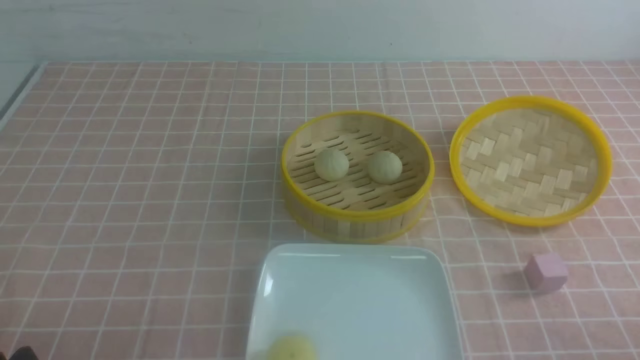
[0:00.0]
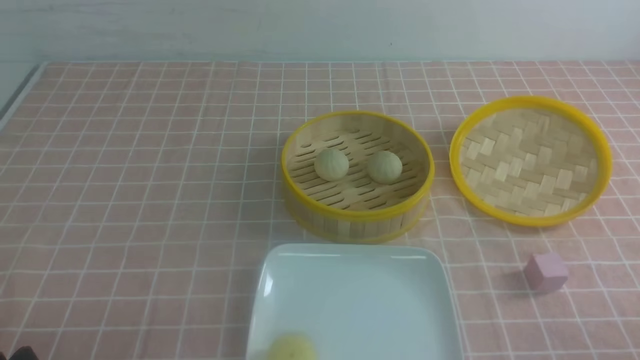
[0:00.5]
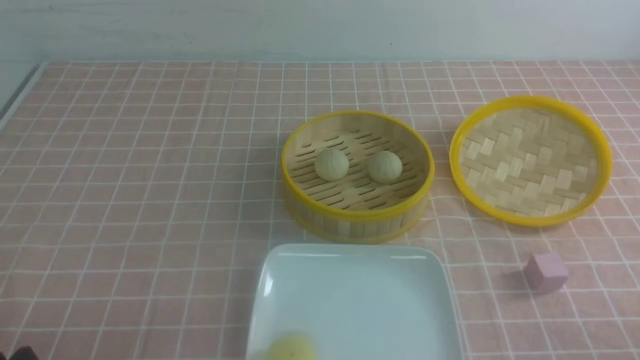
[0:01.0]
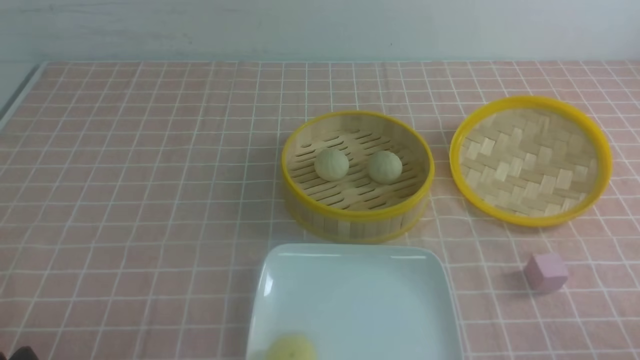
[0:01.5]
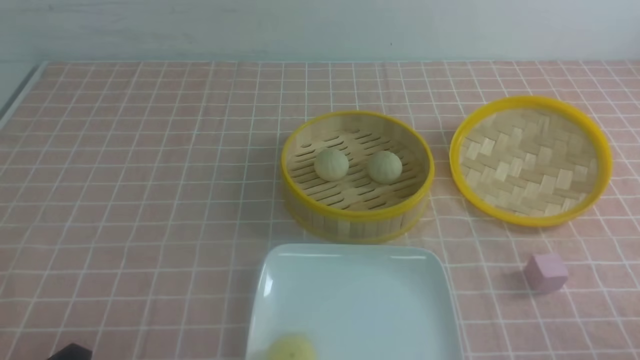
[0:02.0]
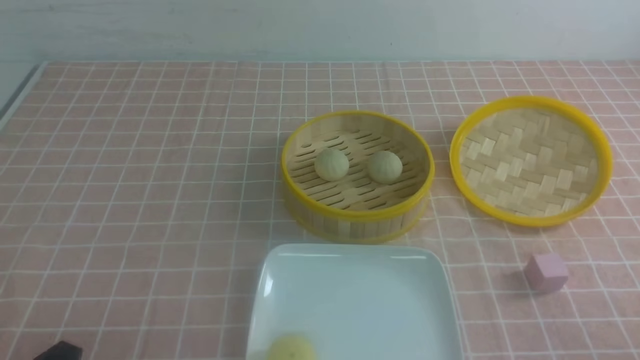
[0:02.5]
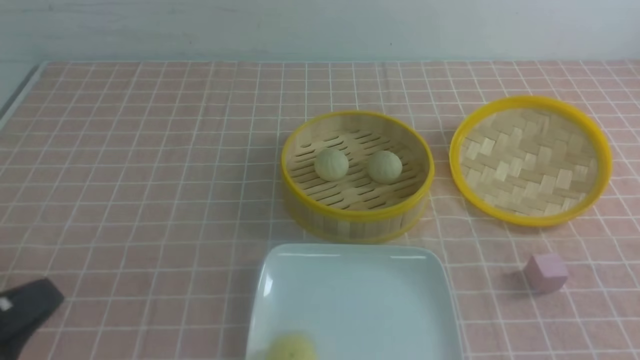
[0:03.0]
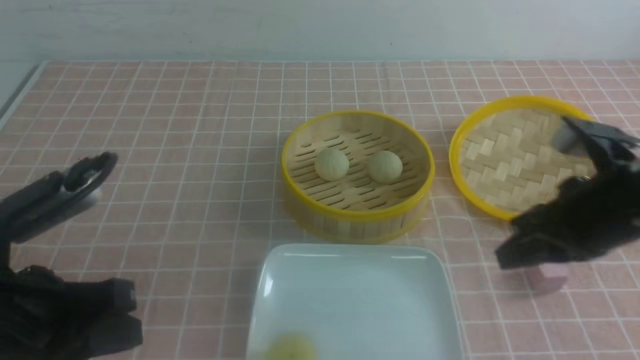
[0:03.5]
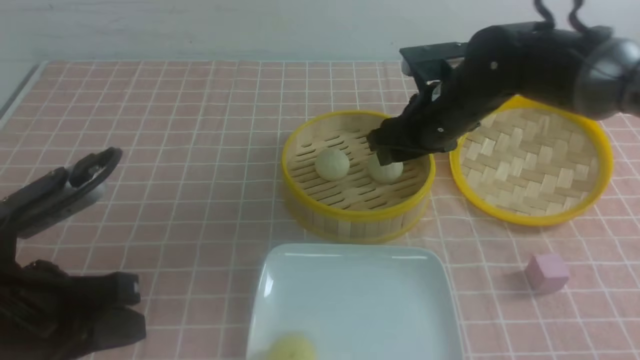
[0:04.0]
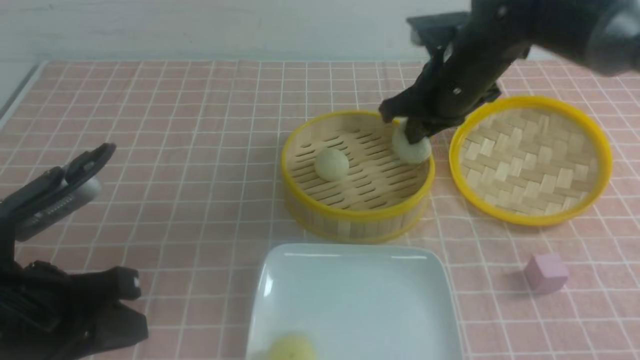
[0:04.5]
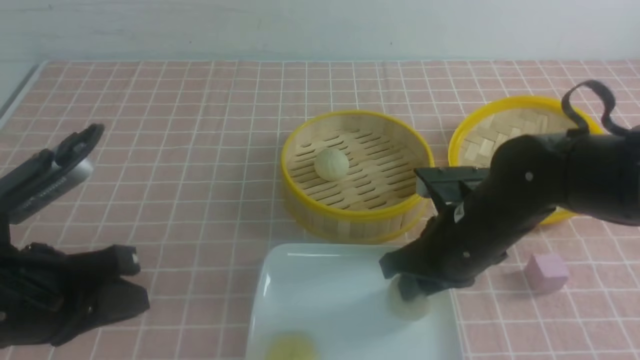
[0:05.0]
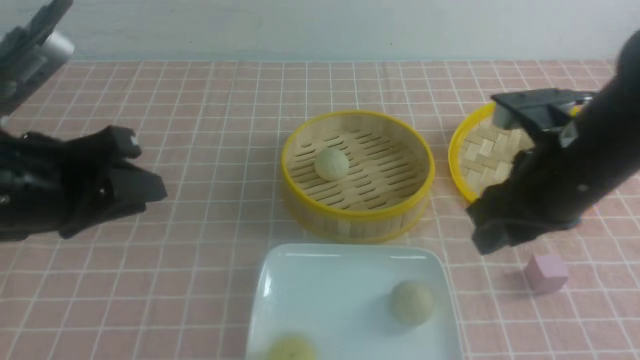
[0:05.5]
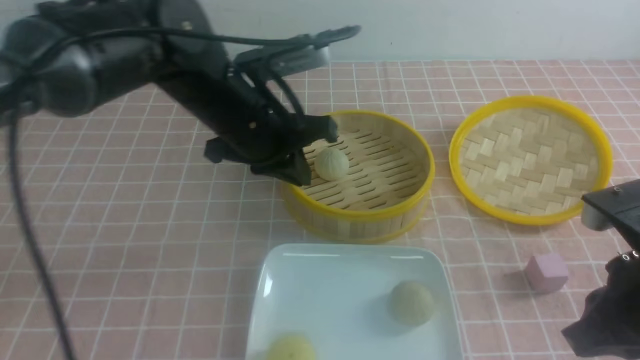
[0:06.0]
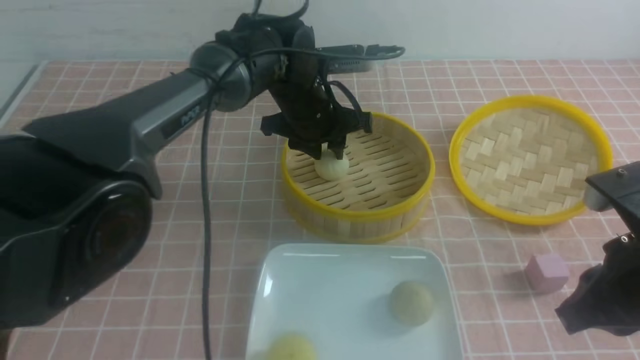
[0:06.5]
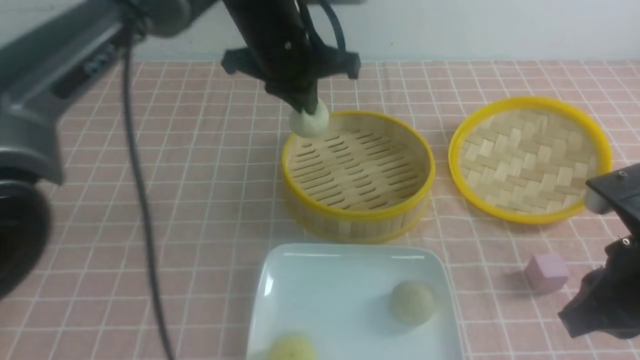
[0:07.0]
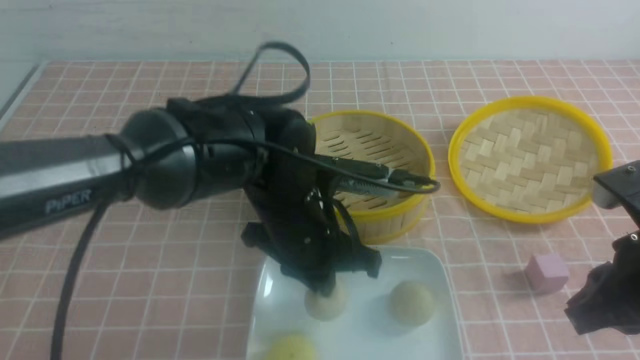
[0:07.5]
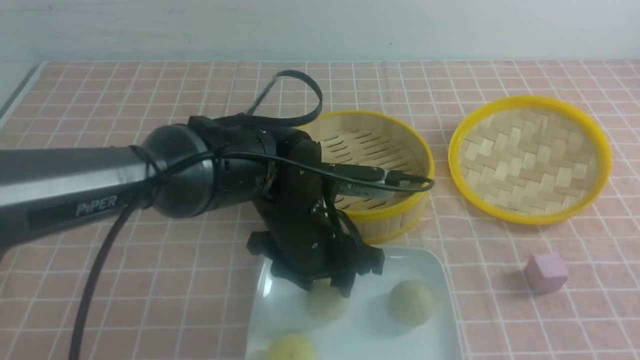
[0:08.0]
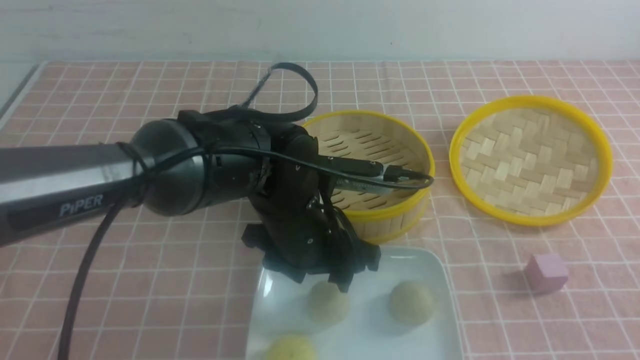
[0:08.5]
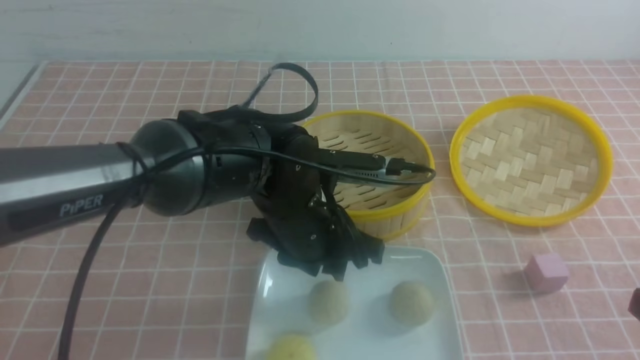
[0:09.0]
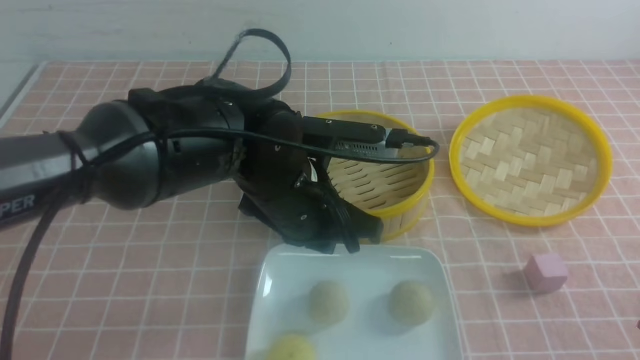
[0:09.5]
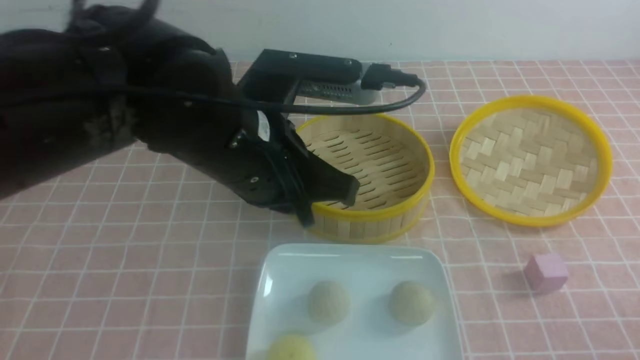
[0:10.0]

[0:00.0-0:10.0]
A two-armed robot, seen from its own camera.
Step, 0:00.0 to 0:04.0: use the right arm to grab the steamed stuffed bun that is closest to it.
Step, 0:04.5 to 0:05.0: use the right arm to put the steamed stuffed bun into the plate.
Step, 0:05.5 to 0:06.5: use the left arm to grab the steamed stuffed bun that is closest to it.
Step, 0:07.0 to 0:08.0: use the left arm to put the steamed stuffed bun into the plate.
0:02.0 to 0:04.0: The right gripper is displaced forward and to the left by roughly 40 cm, and closes, then reopens, while the left gripper goes roughly 15 cm forward and upward, and closes its fingers.
0:04.0 to 0:06.0: The left gripper moves forward and to the right, about 25 cm, while the right gripper is displaced backward and to the right by roughly 25 cm, and closes.
0:06.0 to 0:08.0: The right gripper moves backward, roughly 10 cm; the left gripper goes roughly 15 cm downward, backward and to the right, and opens.
0:08.0 to 0:10.0: The right gripper shifts roughly 10 cm downward; the left gripper shifts roughly 15 cm upward, and closes.

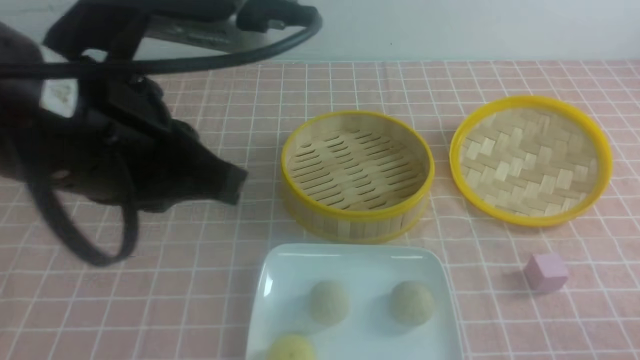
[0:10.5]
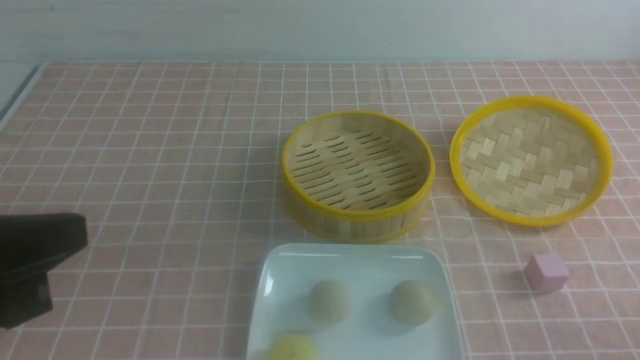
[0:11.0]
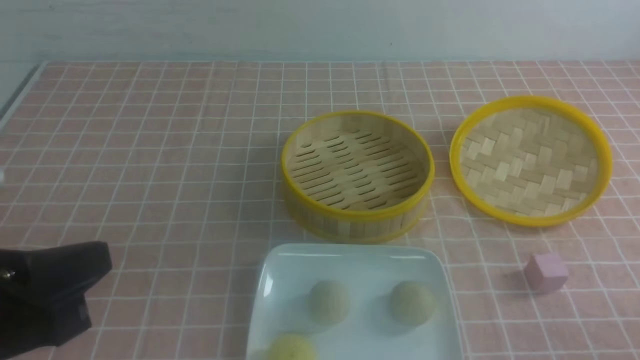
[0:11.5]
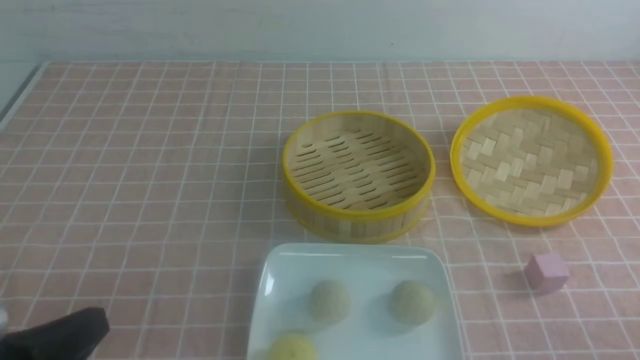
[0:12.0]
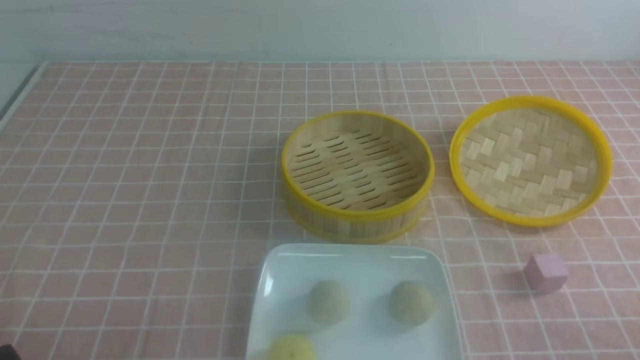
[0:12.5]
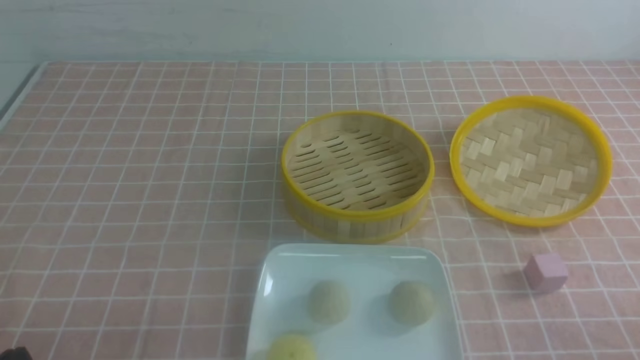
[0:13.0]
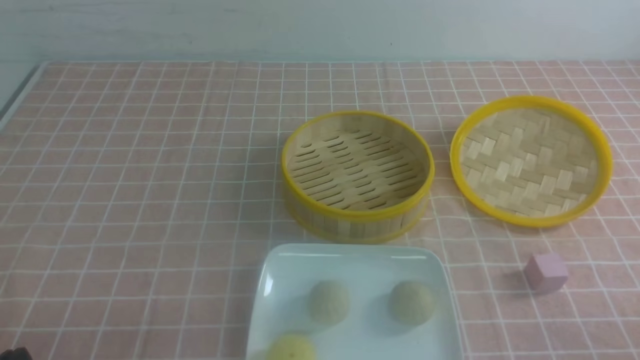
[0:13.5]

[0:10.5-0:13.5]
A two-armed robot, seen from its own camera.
0:10.5 to 0:12.0: The left gripper travels downward, to the left and backward by roughly 20 cm.
0:12.0 to 0:13.5: The left gripper is displaced downward by roughly 5 cm.

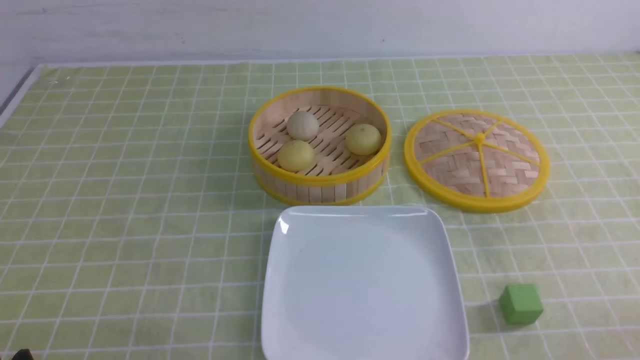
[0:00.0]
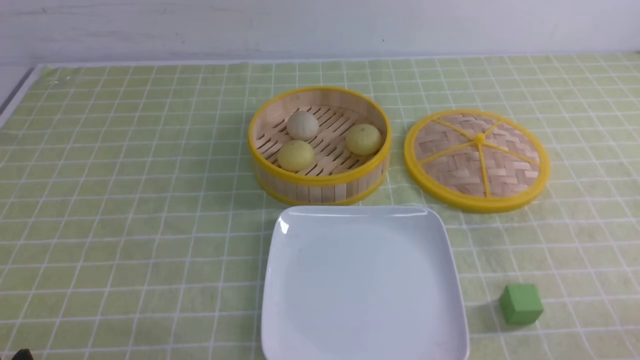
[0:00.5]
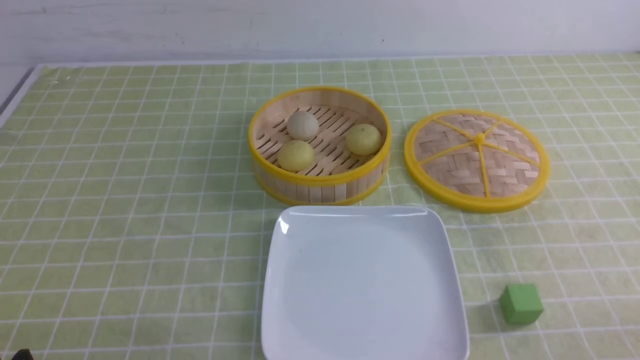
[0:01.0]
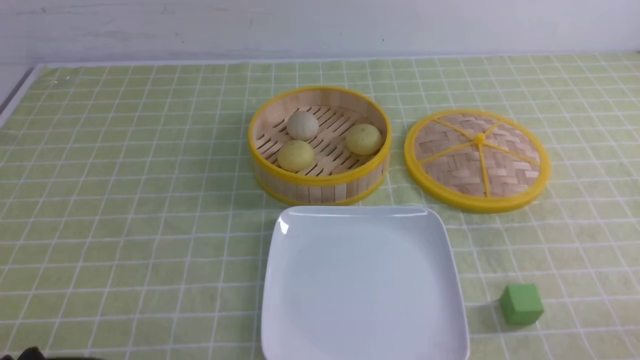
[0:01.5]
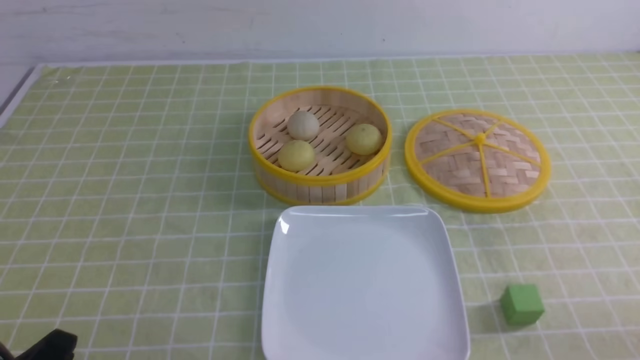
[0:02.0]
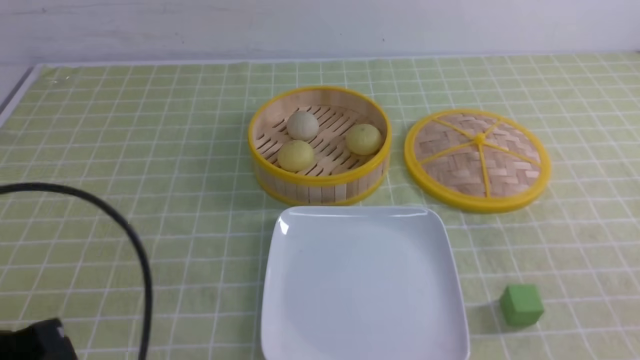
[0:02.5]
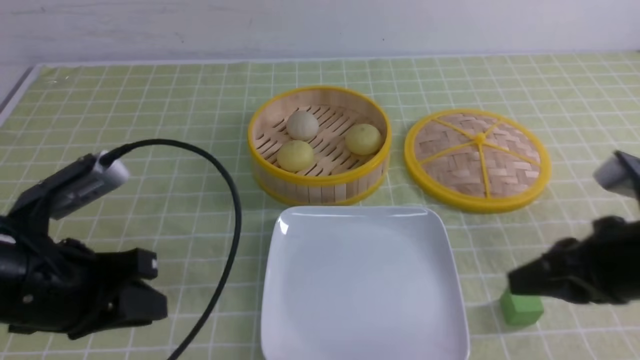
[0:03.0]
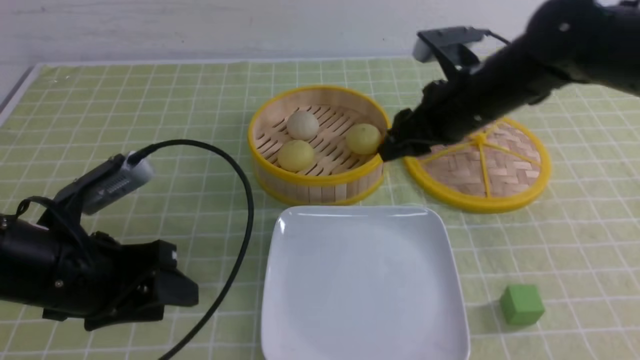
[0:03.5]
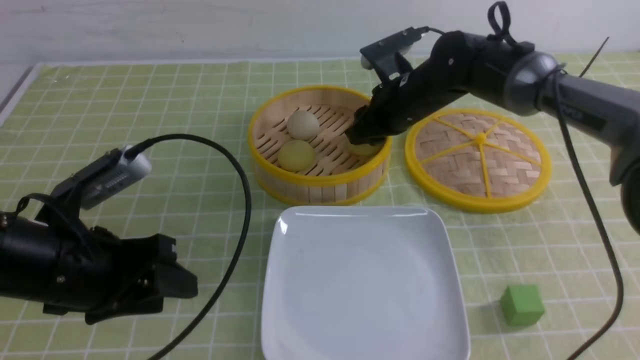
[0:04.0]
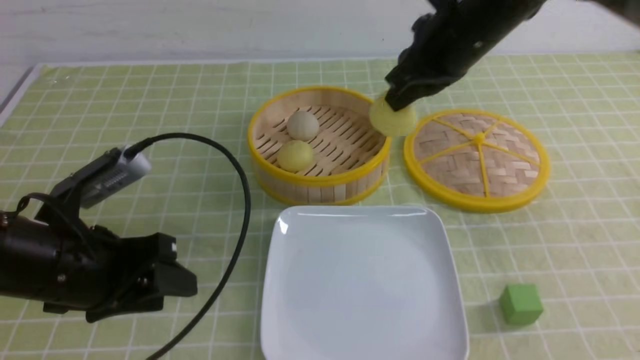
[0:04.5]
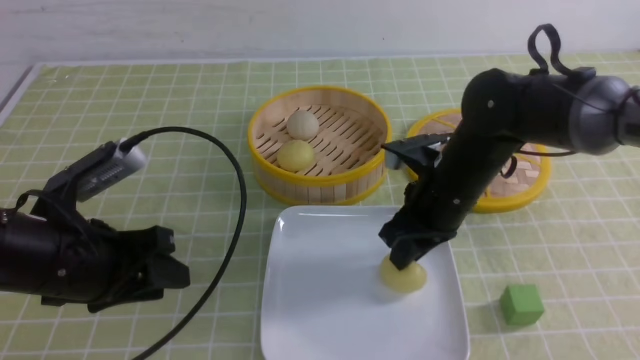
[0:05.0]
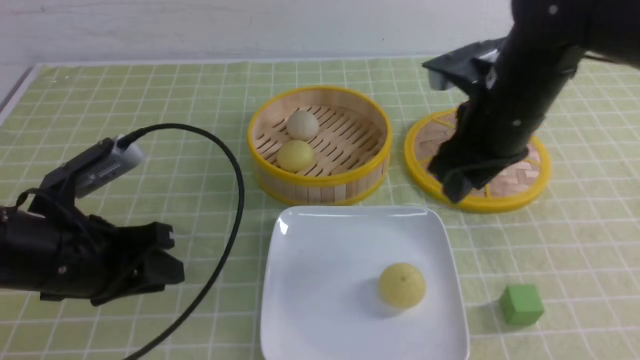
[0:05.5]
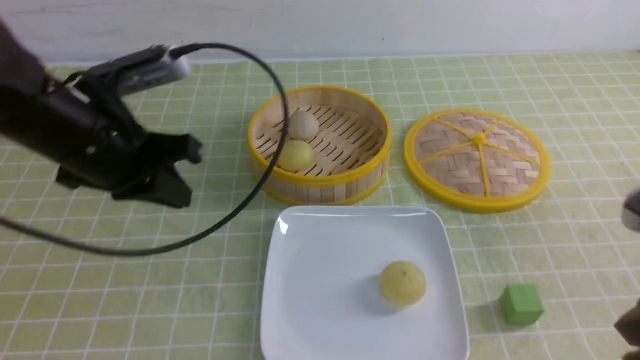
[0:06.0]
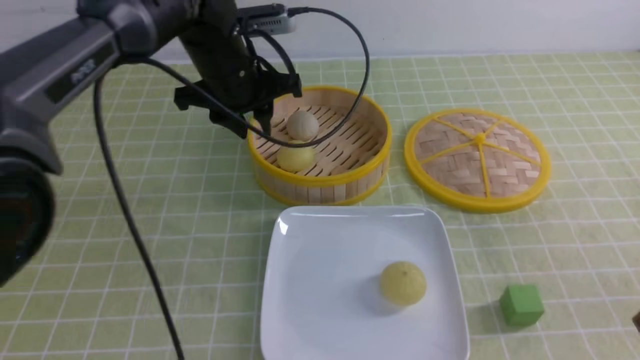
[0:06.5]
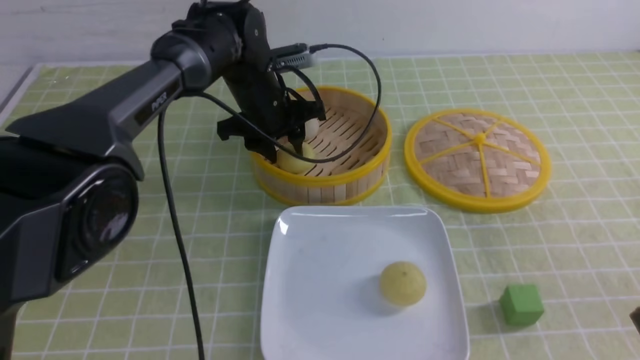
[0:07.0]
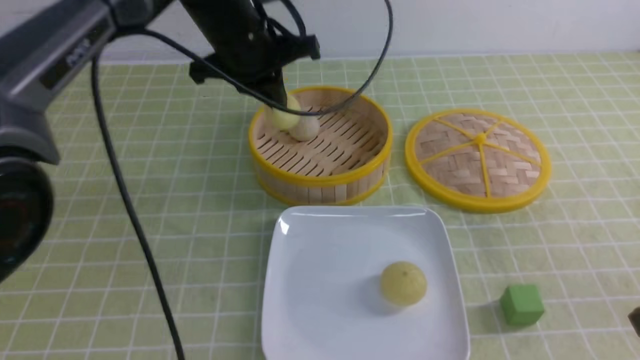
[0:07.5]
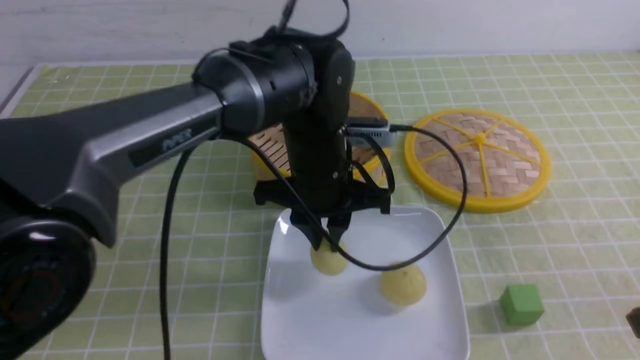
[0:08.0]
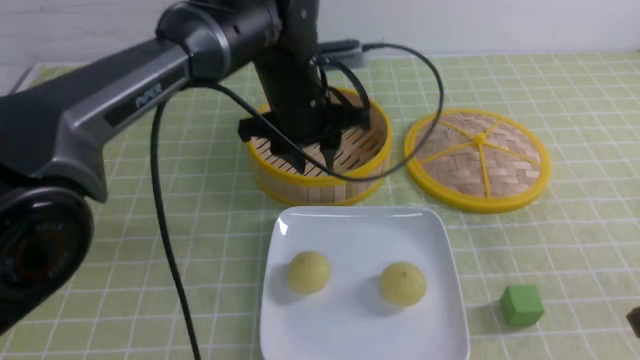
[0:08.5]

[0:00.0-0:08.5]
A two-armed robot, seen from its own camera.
Step, 0:00.0 to 0:04.0: use the right arm to grab the steamed stuffed bun that is closest to it.
Step, 0:04.5 to 0:05.0: use the right arm to put the steamed stuffed bun into the plate.
Step, 0:05.5 to 0:07.0: use the left arm to grab the steamed stuffed bun that is closest to it.
Step, 0:07.5 to 0:08.0: use the left arm to put the steamed stuffed bun into the plate.
0:02.0 to 0:04.0: The right gripper goes some 50 cm forward and to the left, and closes, then opens again. The left gripper moves forward, roughly 15 cm, and opens up.
0:04.0 to 0:06.5: The left gripper heads forward and to the right, covering some 25 cm, and closes, then reopens, while the right gripper moves backward and to the right, roughly 40 cm, and closes.
0:06.5 to 0:08.5: The left gripper moves forward and backward over some 15 cm, changing direction 2 times, and closes, then opens again.
